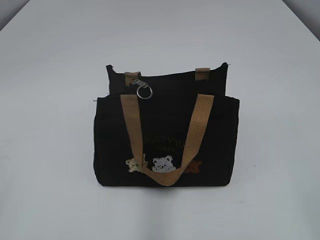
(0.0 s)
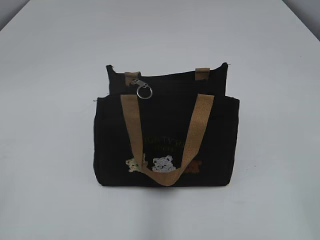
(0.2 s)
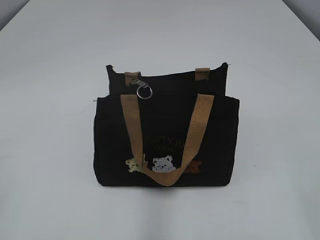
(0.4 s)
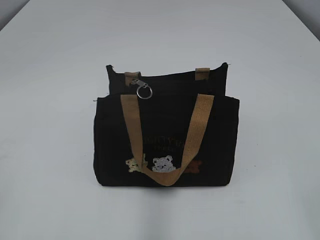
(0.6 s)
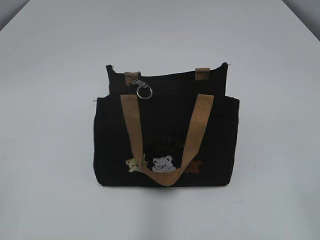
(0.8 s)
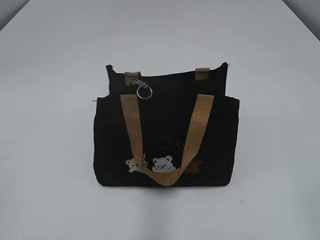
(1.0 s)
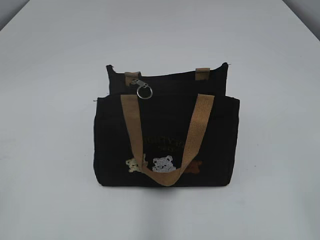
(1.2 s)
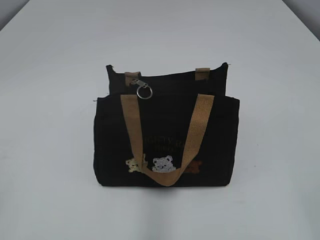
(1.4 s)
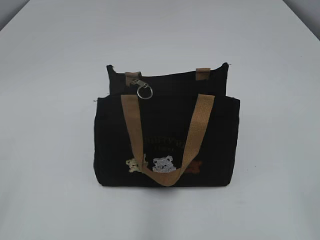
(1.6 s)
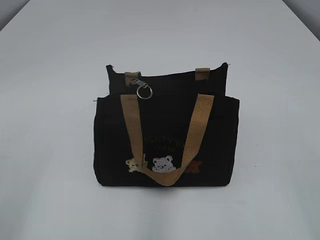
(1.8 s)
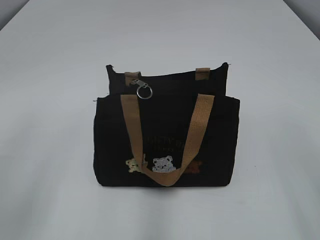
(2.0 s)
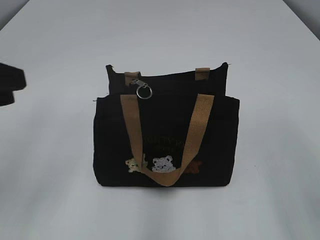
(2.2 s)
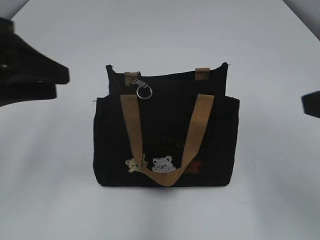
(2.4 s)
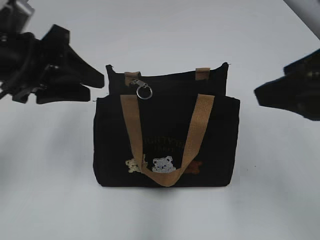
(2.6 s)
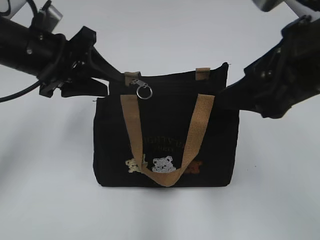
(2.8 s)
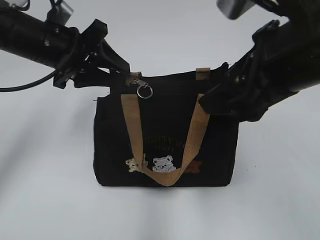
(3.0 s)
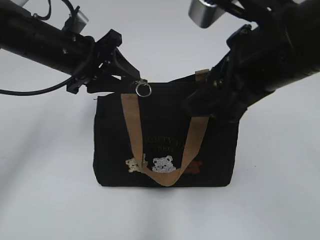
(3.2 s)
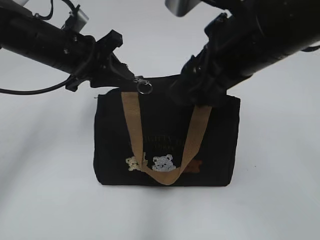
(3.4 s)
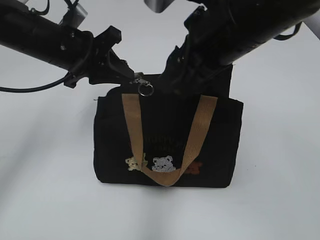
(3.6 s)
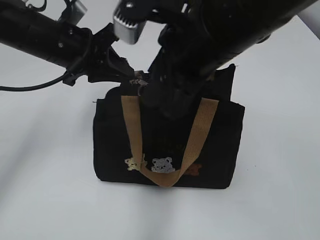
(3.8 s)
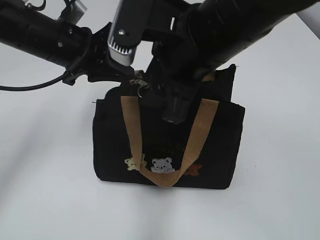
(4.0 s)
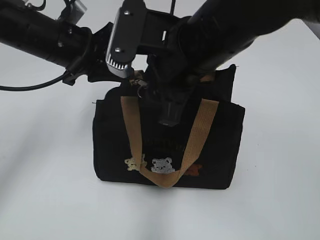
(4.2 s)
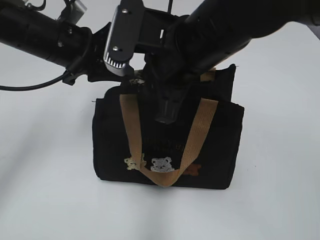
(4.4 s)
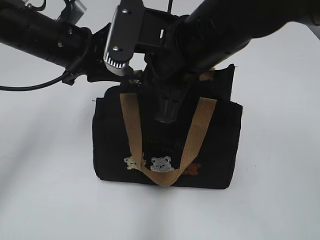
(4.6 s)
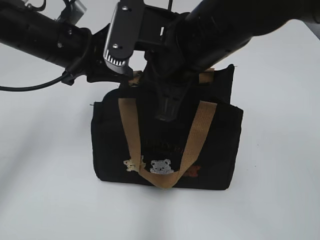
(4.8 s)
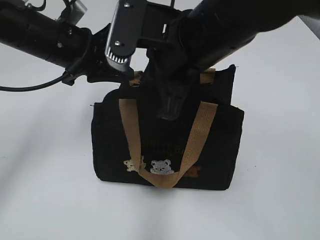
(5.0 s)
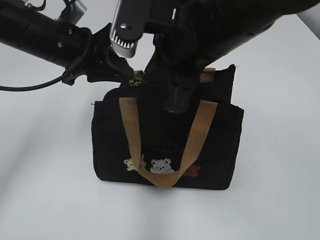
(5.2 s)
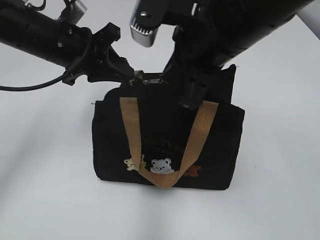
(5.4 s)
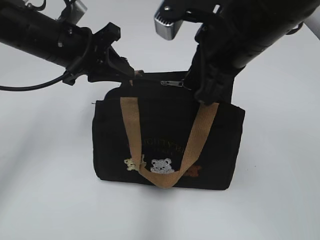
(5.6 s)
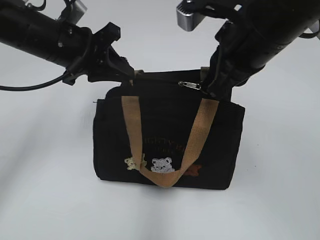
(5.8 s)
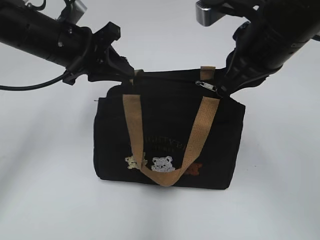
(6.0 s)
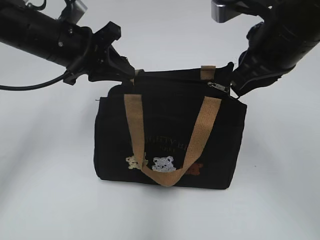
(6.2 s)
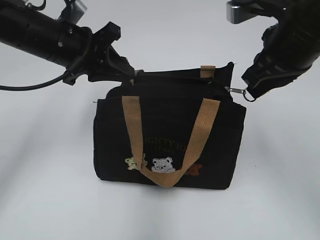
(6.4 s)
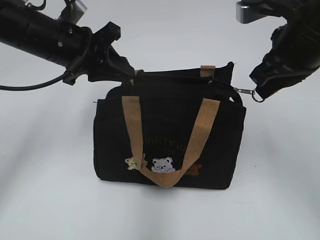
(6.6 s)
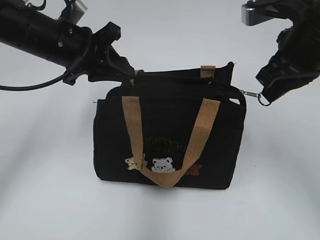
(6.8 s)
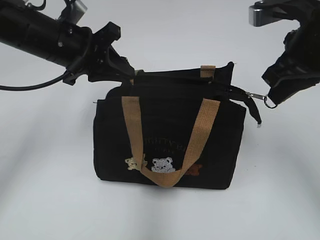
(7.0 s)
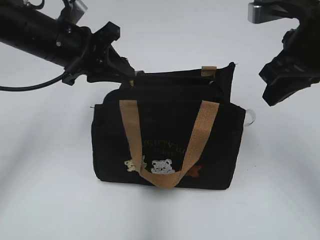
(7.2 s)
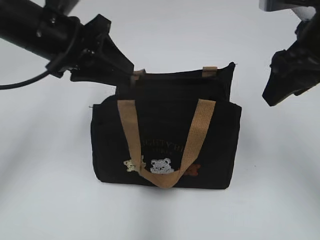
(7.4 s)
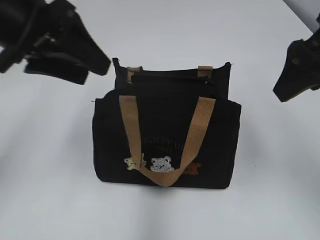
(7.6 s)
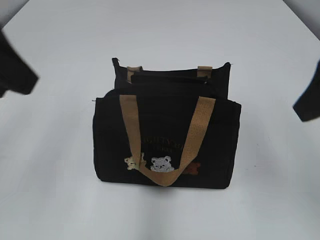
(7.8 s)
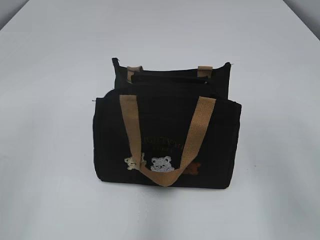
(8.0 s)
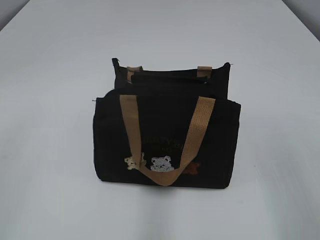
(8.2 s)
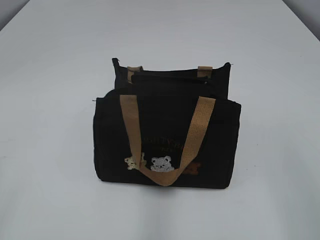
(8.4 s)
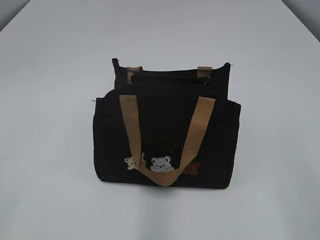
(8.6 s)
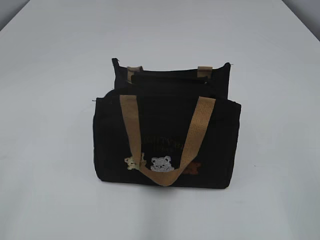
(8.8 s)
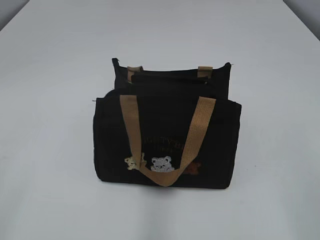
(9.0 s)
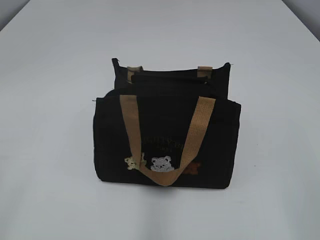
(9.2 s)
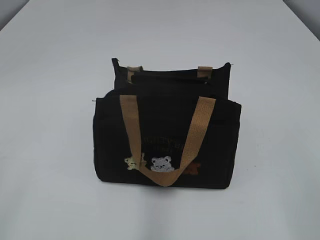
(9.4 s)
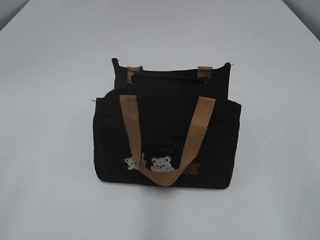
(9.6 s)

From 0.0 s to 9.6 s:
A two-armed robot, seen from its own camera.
Step, from 0.0 s to 7.0 s: Pull open the zipper with your right hand.
Step, from 7.2 s to 7.4 s: Hold the bag with your left hand.
From 1.6 s to 3.2 s: The left gripper moves forward and to the right, roughly 40 cm. The right gripper shifts roughly 25 cm forward and to the left.
From 3.2 s to 4.8 s: The left gripper closes. The right gripper goes about 10 cm to the left and forward, and closes.
From 4.8 s to 6.4 s: The right gripper is displaced to the right by approximately 10 cm.
From 6.4 s to 8.0 s: The left gripper is displaced backward, upward and to the left by about 25 cm, and opens. The right gripper travels backward and to the right by some 15 cm, and opens up.

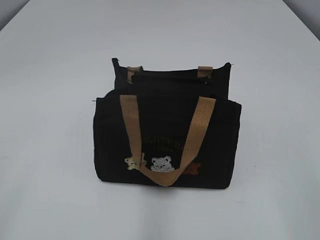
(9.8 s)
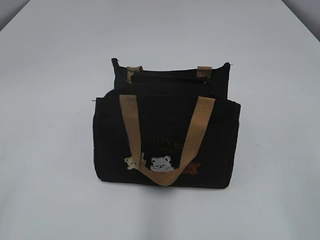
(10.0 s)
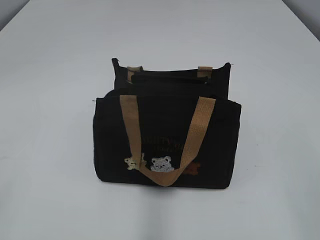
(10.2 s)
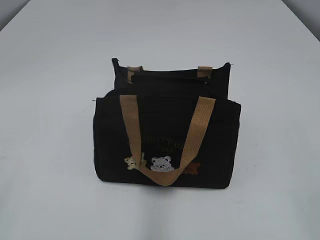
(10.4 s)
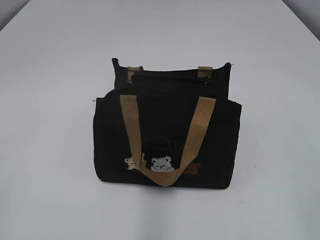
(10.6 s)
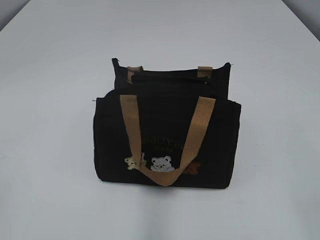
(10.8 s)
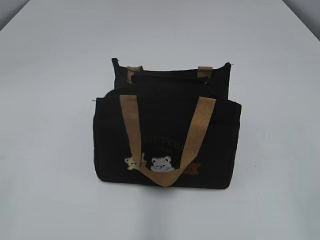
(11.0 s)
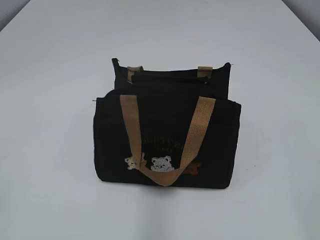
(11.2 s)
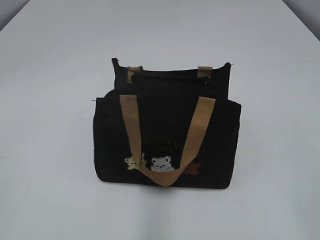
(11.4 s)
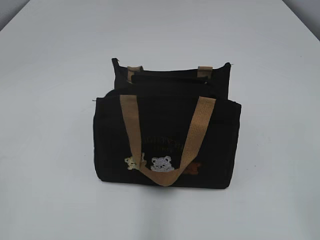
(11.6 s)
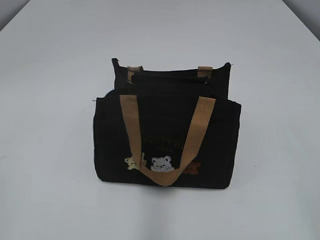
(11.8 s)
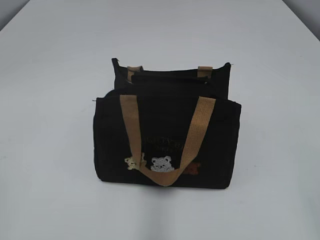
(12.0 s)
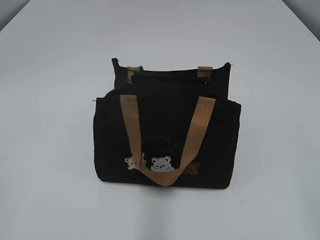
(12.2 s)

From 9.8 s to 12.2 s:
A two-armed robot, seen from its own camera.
From 11.0 s to 12.2 s: The two grippers keep their place.

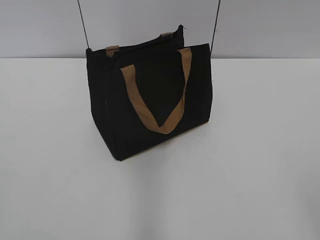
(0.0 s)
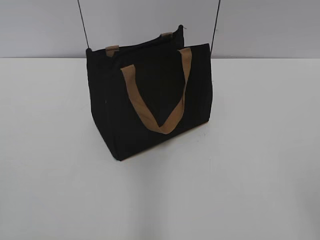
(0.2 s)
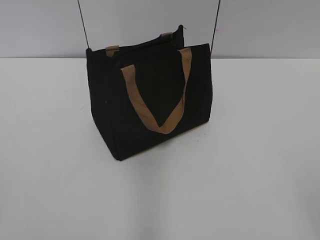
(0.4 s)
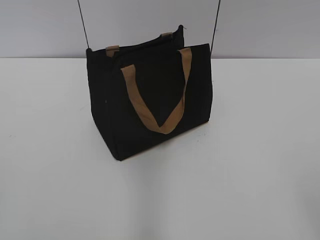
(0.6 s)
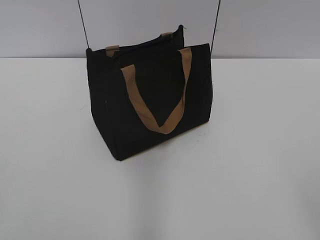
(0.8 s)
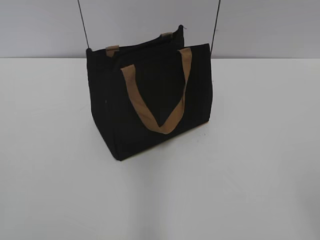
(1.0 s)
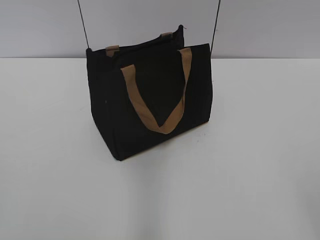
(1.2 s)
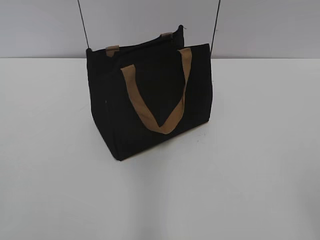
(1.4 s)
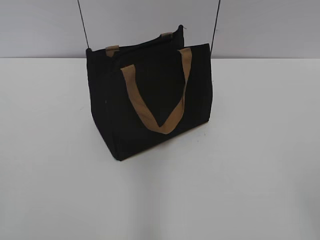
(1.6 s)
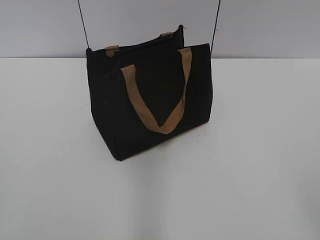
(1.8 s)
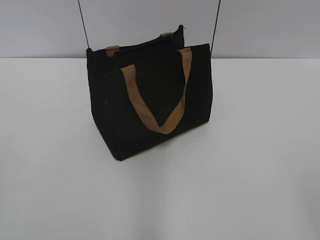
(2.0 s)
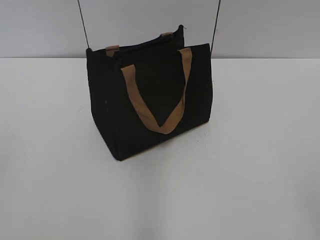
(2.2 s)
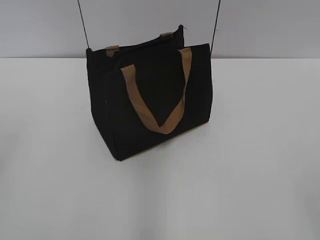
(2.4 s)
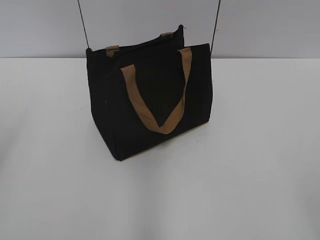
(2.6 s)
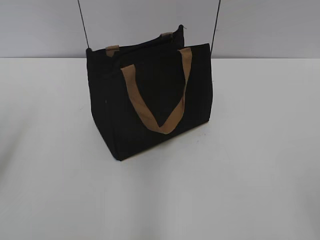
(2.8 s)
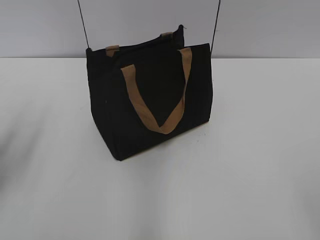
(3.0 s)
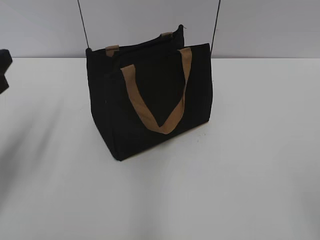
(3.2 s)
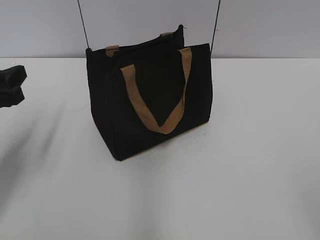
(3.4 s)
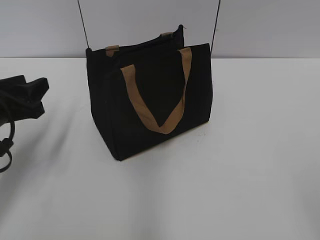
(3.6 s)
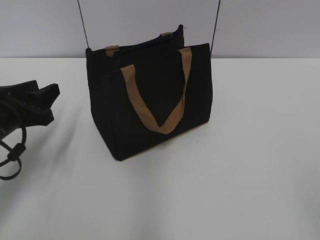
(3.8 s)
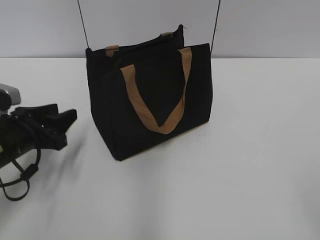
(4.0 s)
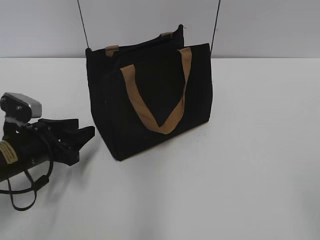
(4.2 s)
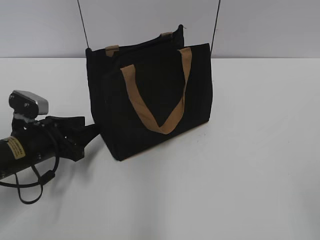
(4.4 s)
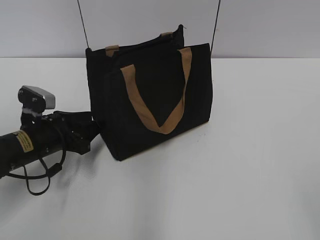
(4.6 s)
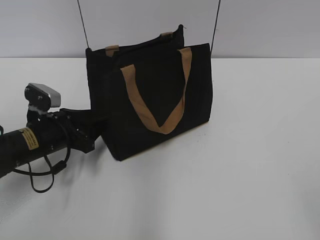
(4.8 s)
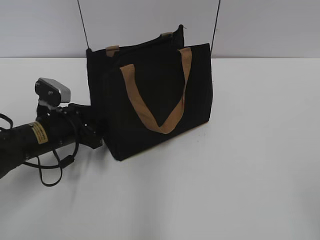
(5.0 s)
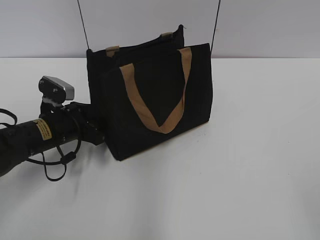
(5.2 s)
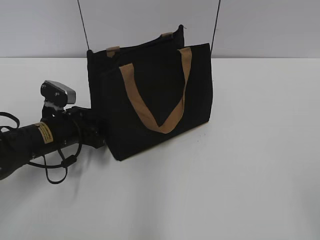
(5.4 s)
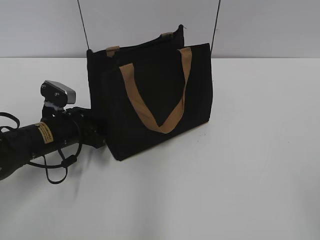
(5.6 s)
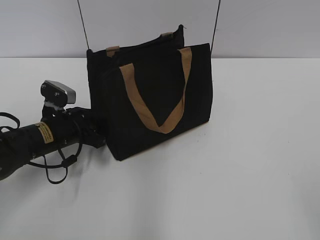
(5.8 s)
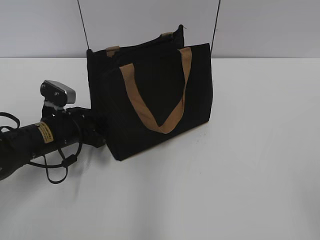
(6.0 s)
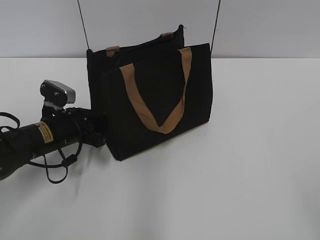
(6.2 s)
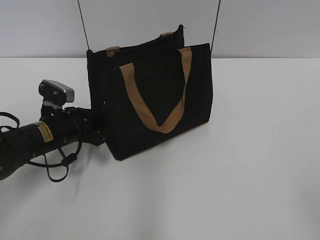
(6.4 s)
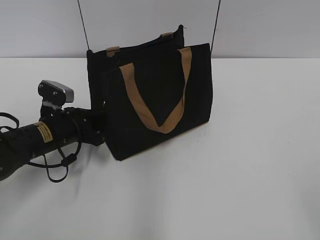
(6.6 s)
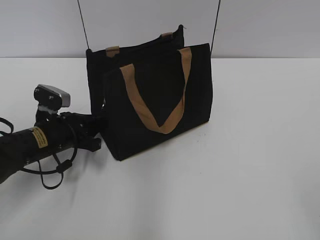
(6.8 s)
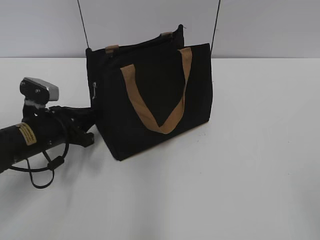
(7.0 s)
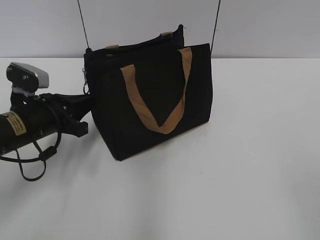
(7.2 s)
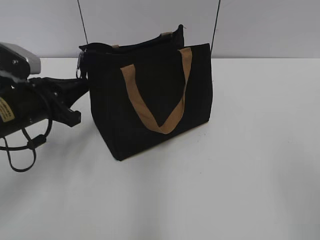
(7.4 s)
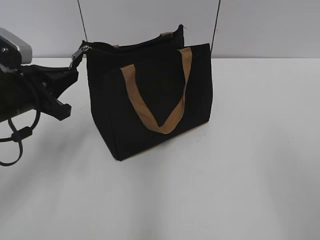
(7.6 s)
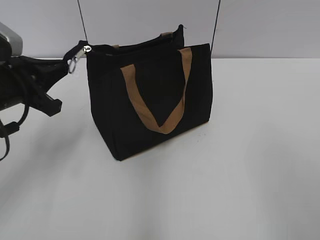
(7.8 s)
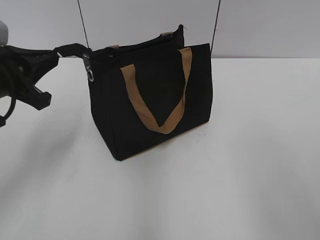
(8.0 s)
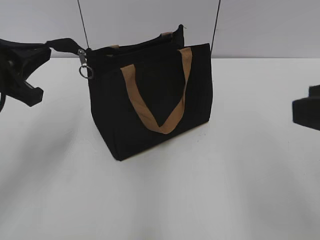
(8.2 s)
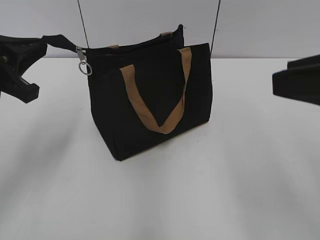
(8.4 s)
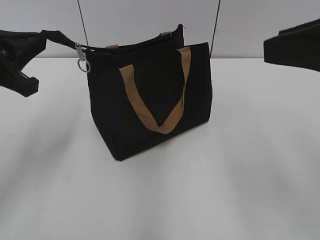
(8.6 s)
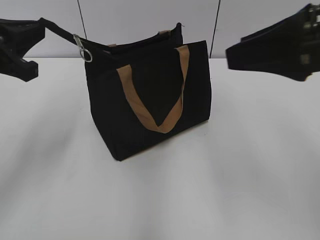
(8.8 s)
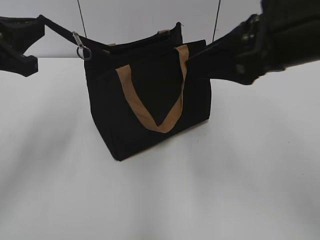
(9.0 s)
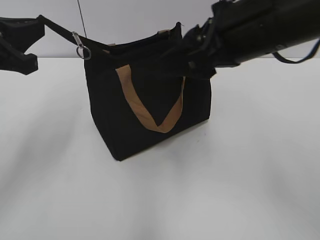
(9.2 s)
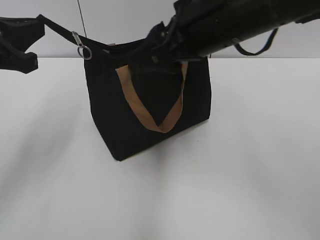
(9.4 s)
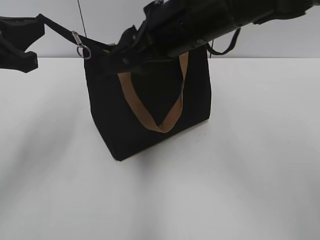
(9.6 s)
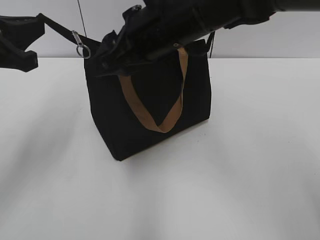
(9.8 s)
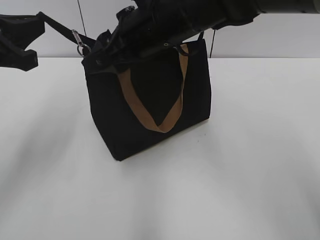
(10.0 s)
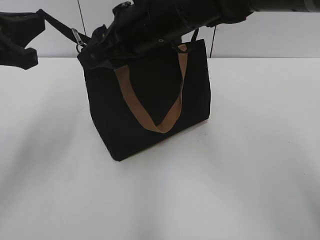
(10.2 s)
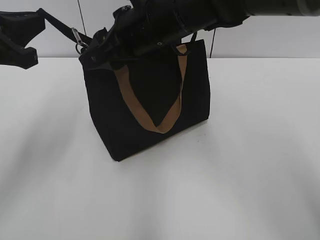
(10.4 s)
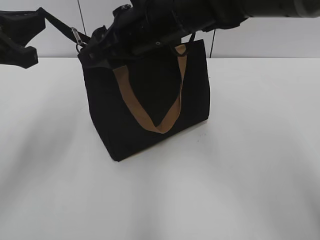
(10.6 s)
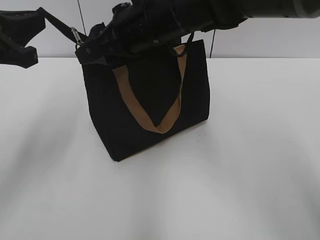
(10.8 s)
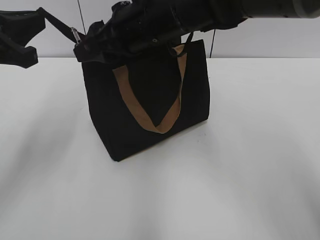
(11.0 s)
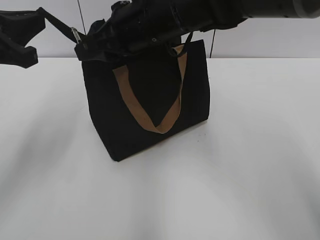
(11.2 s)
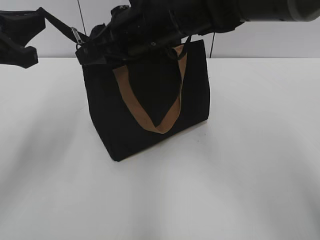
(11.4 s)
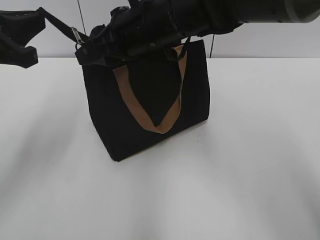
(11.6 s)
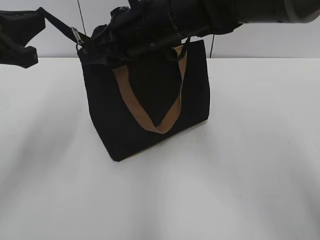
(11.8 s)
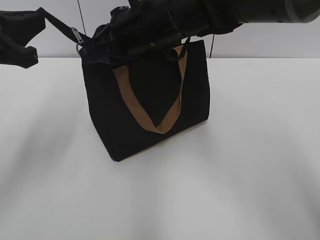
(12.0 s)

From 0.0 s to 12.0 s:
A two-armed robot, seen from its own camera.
From 1.6 s to 3.0 s: The left gripper moves forward, some 20 cm.
From 3.0 s to 4.4 s: The left gripper shifts about 20 cm downward, to the right and forward.
From 4.4 s to 6.0 s: The left gripper changes place by approximately 5 cm, and closes up.
From 6.0 s to 7.6 s: The left gripper goes roughly 10 cm upward, and closes.
From 7.6 s to 9.0 s: The right gripper shifts about 20 cm forward and to the left. The left gripper heads upward, covering some 10 cm.
From 9.0 s to 10.4 s: The right gripper moves to the left and forward, some 20 cm.
From 10.4 s to 12.0 s: The right gripper closes its fingers.
